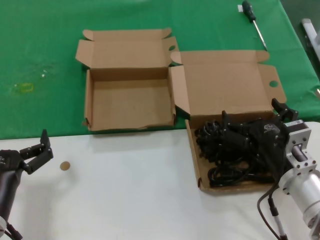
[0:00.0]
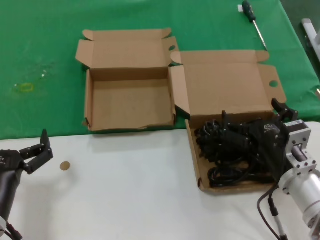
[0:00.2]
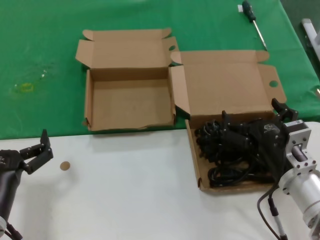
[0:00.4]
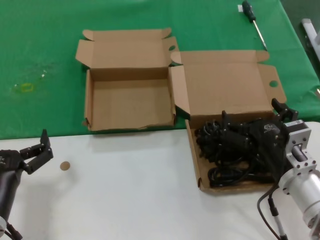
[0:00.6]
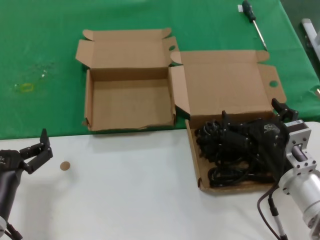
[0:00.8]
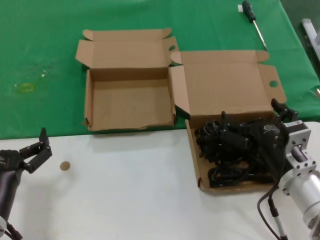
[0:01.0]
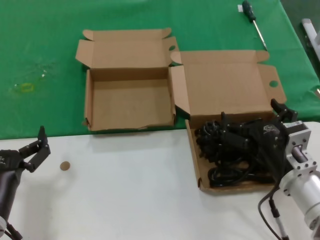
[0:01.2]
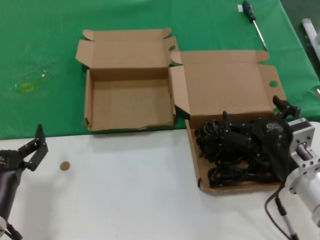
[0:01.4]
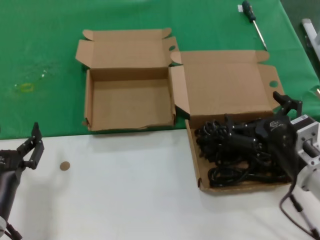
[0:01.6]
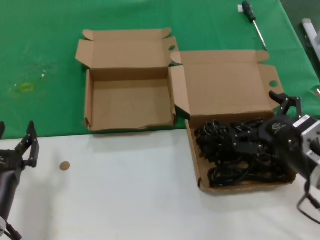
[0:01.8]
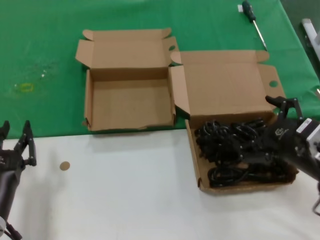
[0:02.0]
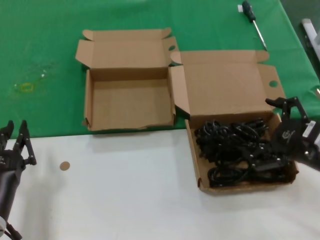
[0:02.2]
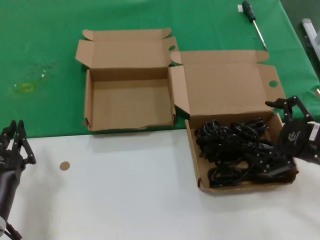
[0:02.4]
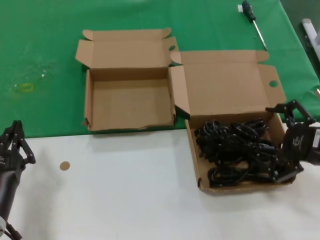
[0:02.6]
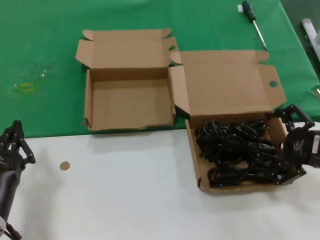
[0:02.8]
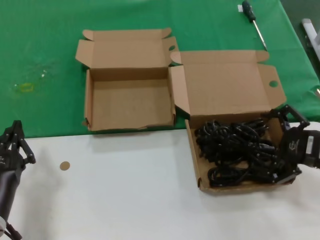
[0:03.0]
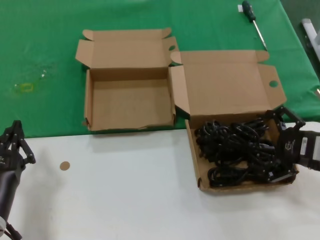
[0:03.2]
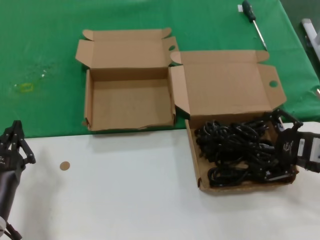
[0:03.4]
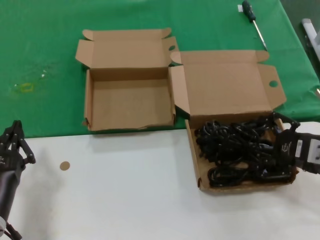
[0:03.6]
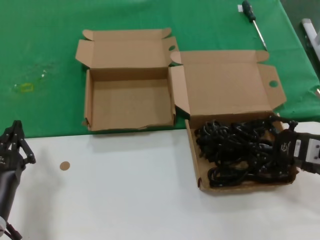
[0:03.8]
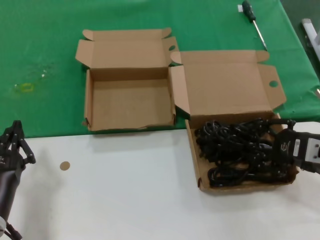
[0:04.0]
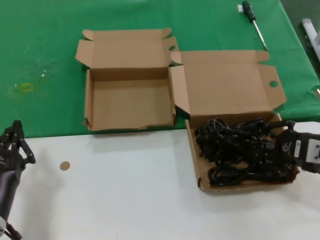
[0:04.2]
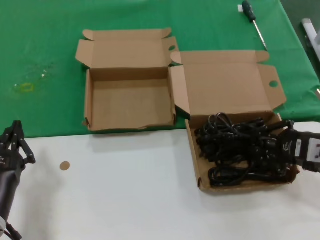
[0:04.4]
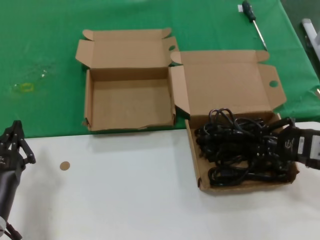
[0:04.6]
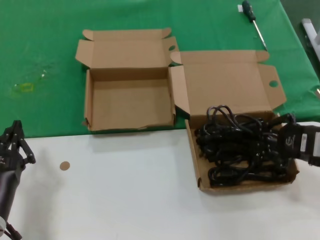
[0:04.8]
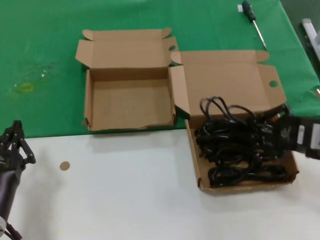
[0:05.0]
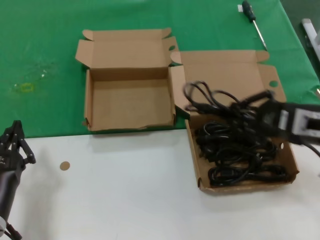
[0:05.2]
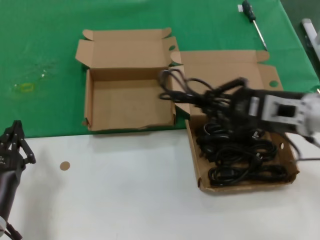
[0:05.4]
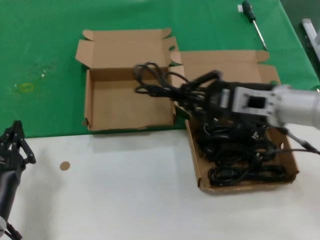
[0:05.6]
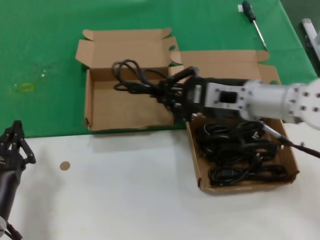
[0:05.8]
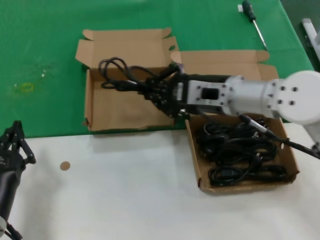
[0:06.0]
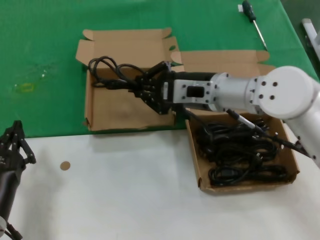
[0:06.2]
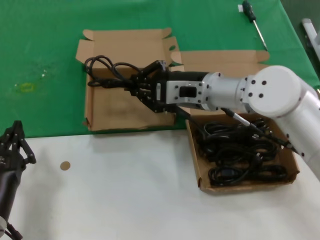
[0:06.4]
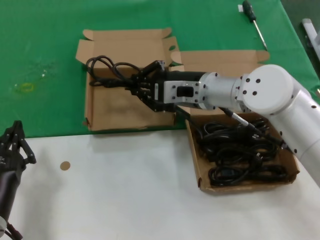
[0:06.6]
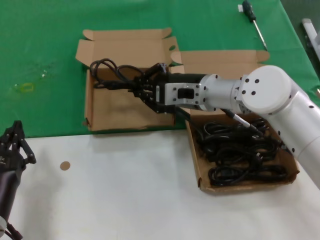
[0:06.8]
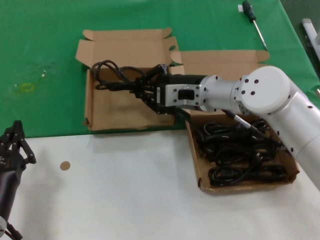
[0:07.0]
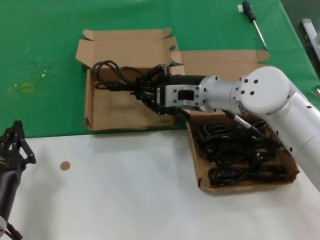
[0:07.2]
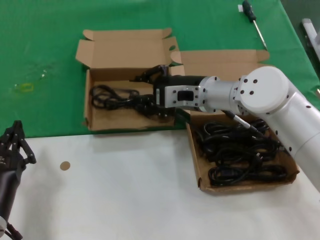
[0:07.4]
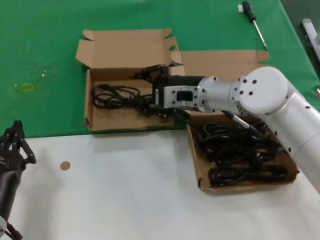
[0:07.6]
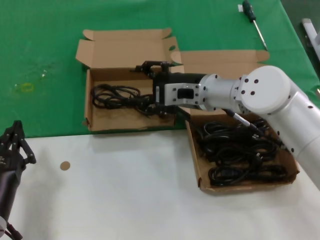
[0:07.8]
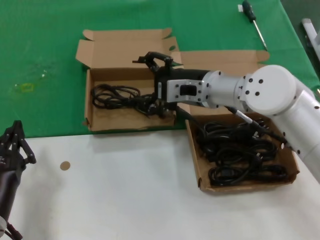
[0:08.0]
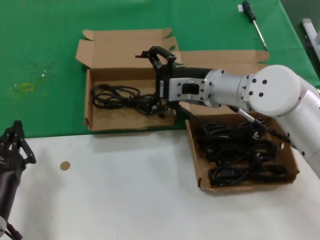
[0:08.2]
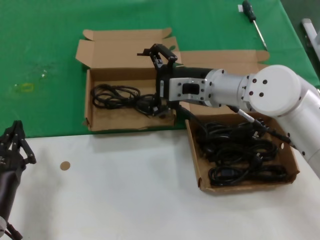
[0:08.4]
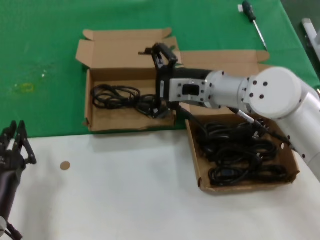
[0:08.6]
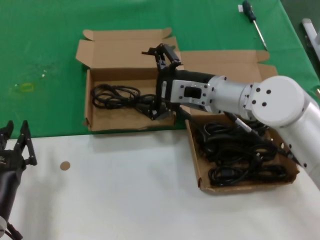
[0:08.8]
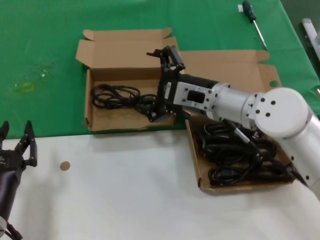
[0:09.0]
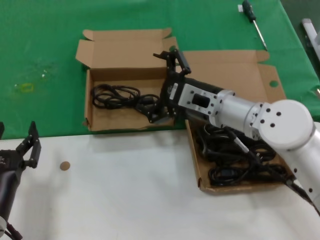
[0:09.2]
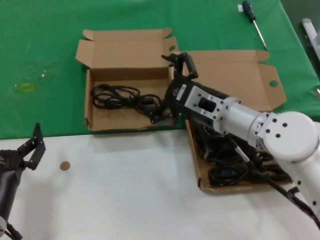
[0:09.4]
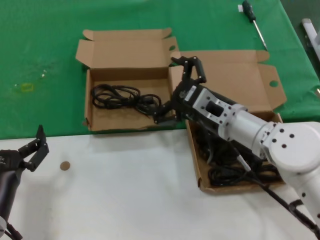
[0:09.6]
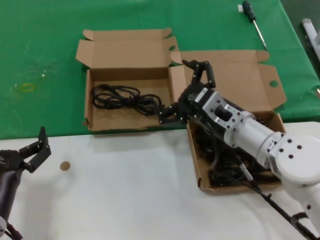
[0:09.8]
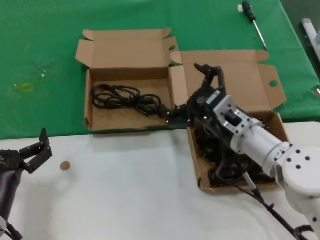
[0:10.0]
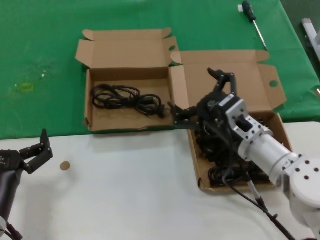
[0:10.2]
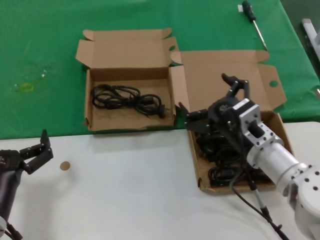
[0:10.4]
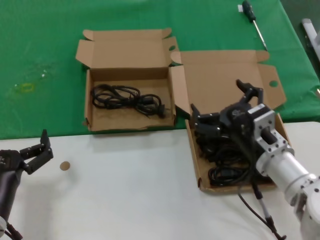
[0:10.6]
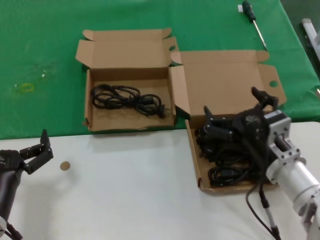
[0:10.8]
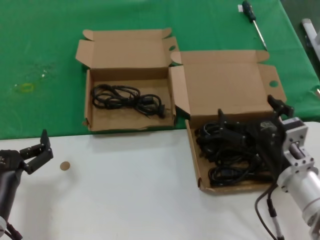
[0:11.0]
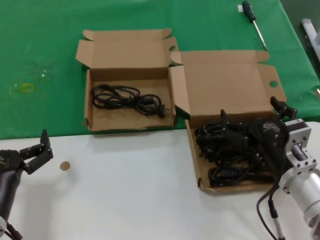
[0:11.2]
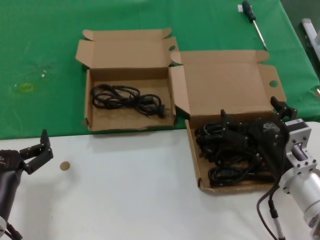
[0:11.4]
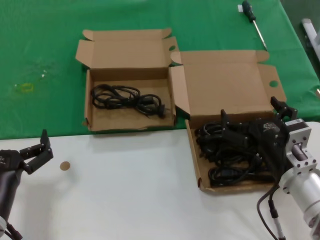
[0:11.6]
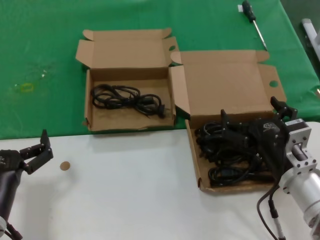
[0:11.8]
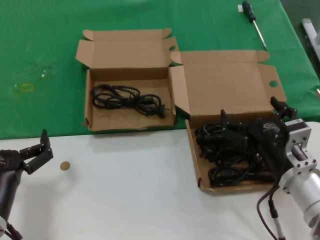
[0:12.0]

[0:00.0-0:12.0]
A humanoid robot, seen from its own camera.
Task of the whole recording: take the parts from the box containing them and put them into an empty box.
Step, 0.0 to 4.2 s: Grasp the data cable.
Step, 4.4 to 8.0 s: Place the data cable in the another box.
0.0 to 1.6 s: The hands make only small movements.
1.6 to 3.0 s: The right hand shifts roughly 15 cm to the right and upward.
3.0 to 4.4 s: The hands move only a little.
4.4 to 6.0 s: The right hand shifts roughly 25 cm to the left, forward and upward.
6.0 to 7.6 s: The right hand moves forward, about 5 cm.
7.6 to 9.0 s: The hands make only small movements.
9.0 to 10.4 s: The right hand travels backward, downward and to the right by about 15 cm.
10.4 to 12.0 s: The right hand goes roughly 5 cm backward.

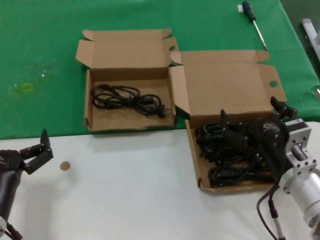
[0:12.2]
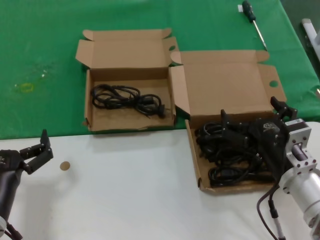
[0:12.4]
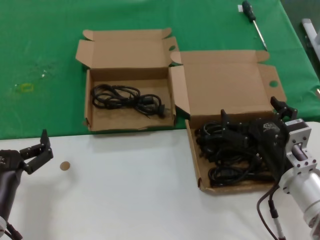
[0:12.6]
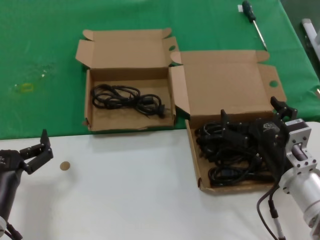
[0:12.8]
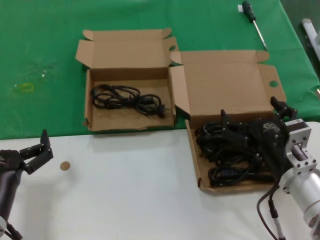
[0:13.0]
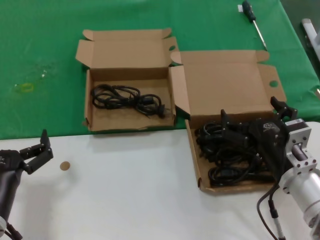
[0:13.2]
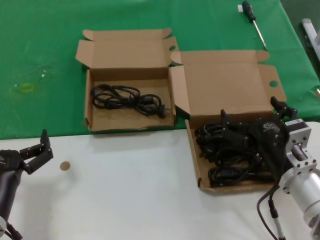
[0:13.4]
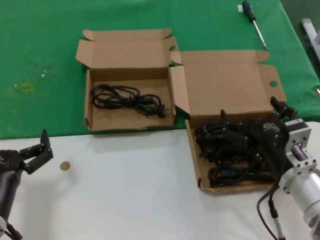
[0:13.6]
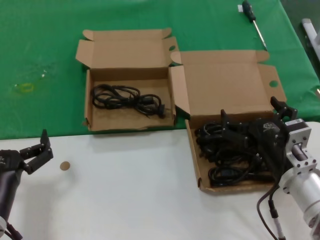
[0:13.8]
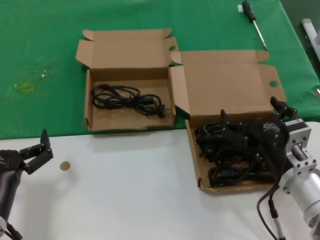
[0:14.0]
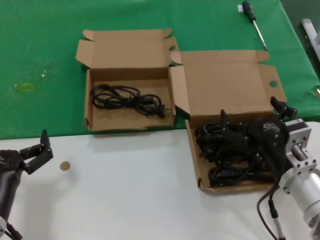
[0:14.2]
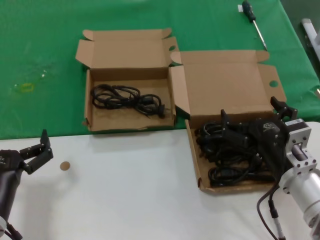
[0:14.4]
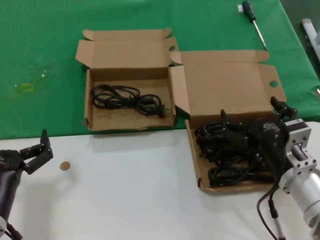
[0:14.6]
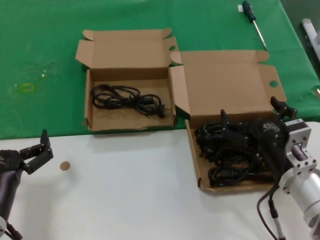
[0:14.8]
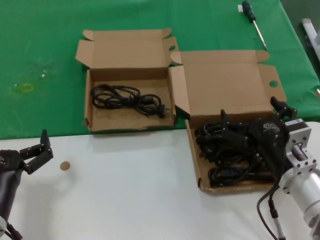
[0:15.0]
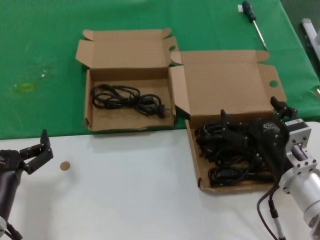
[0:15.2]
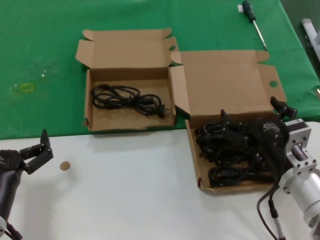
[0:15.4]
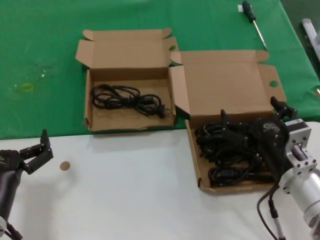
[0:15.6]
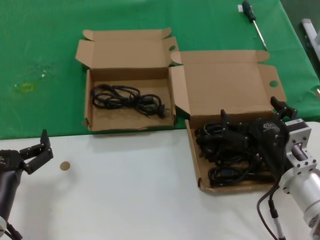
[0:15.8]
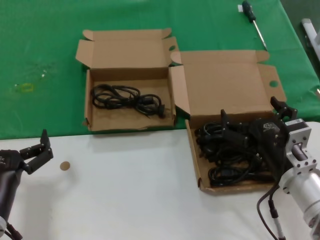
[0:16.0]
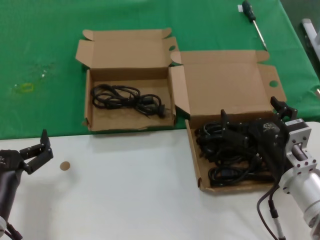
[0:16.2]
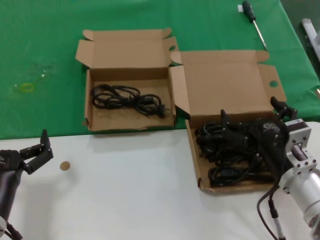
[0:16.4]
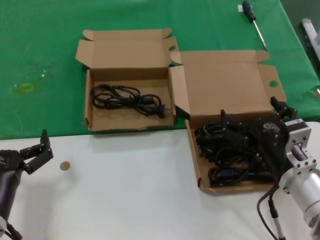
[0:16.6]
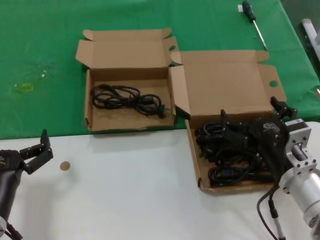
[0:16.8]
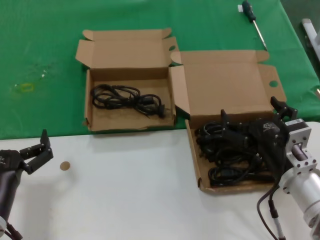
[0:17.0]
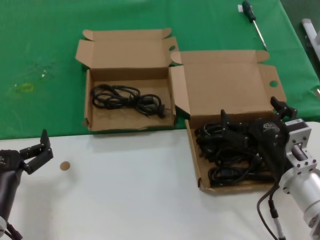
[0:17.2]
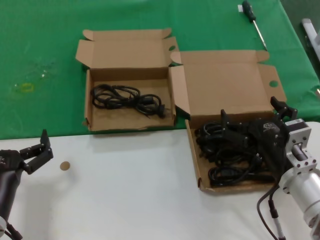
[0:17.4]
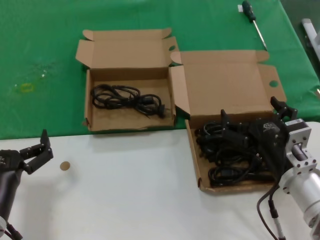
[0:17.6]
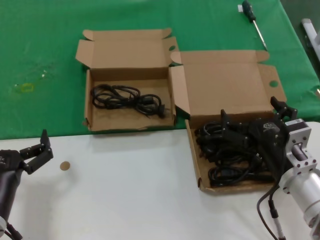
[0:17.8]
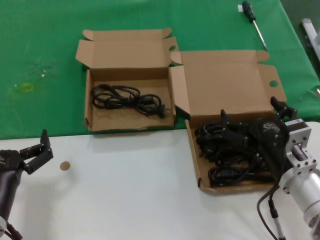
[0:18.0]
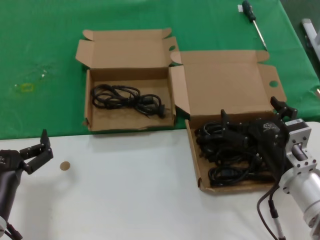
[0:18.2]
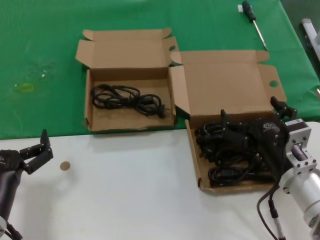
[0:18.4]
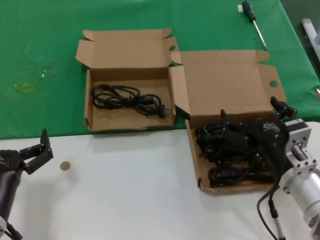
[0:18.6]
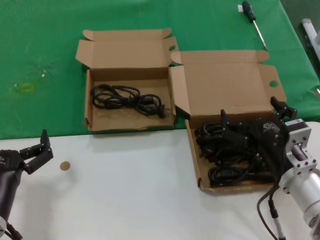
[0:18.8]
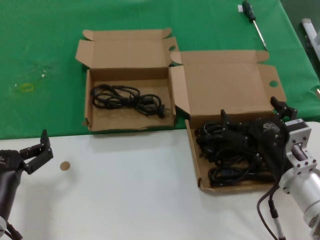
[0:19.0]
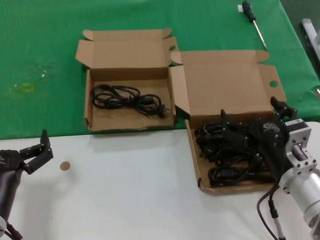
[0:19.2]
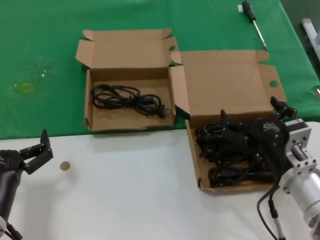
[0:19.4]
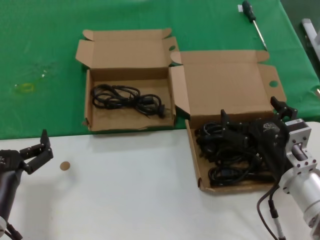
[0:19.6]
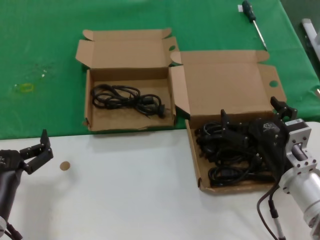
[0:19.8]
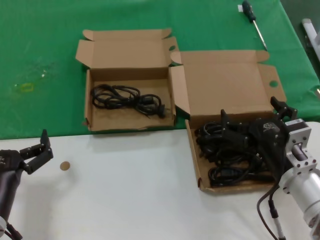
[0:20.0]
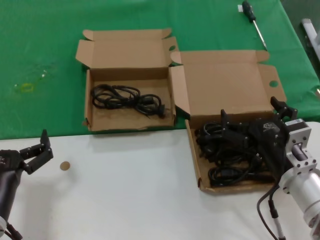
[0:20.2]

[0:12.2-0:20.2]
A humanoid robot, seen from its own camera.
Task of the whole recording: take the parts from the box containing them and put them into an empty box.
12.2 to 20.2 s: The two hands keep their place.

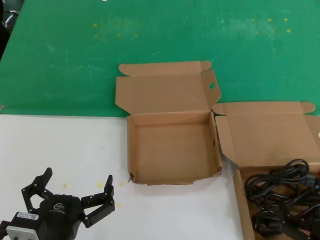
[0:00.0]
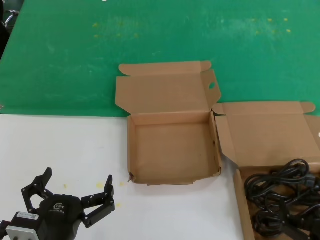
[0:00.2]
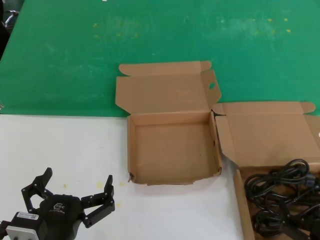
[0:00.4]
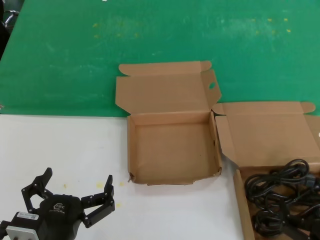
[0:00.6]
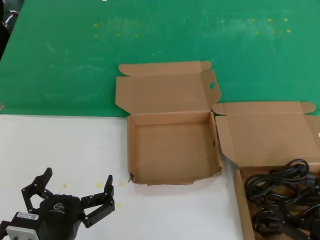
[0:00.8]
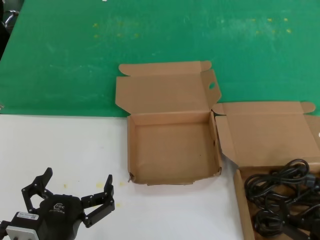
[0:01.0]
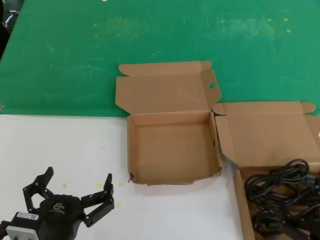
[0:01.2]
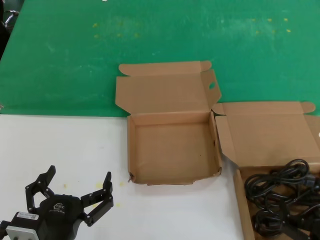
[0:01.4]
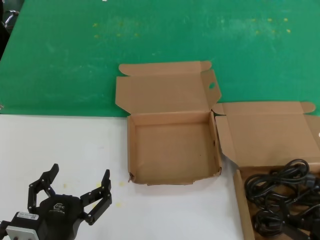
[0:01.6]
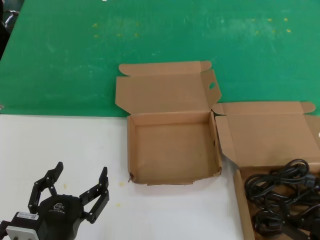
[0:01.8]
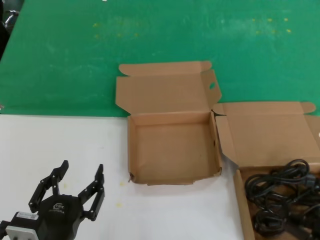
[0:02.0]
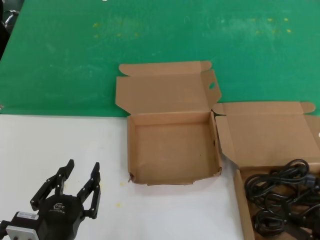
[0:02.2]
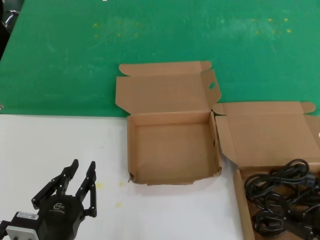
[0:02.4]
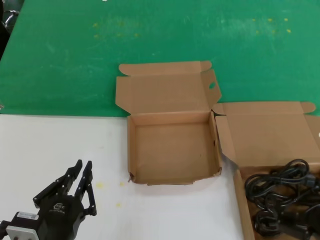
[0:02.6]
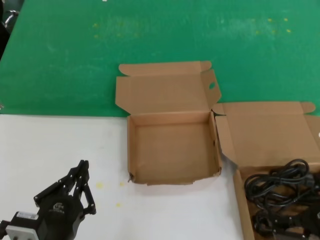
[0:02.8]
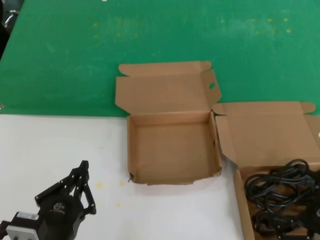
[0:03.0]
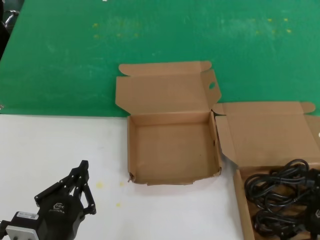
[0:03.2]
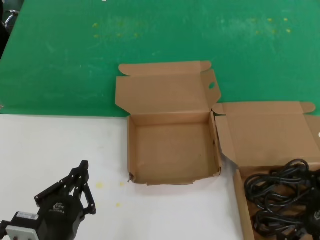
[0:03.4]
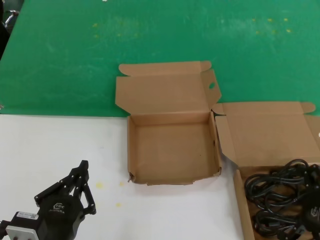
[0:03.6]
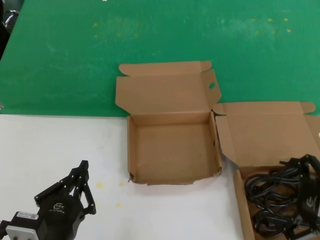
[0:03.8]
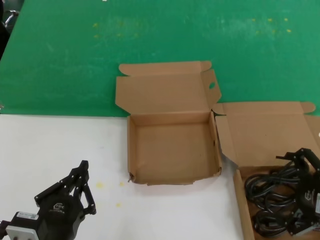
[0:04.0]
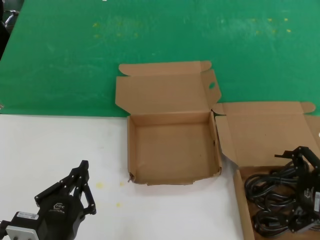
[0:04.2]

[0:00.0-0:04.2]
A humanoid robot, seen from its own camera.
Task of the whole recording: take the parts from the box containing them and put them into an empty box.
0.0 to 1.4 s: Both hands stay about where they are.
1.4 to 2.8 s: The right hand is displaced upward by roughly 5 cm.
2.8 to 4.2 s: The right hand is displaced upward and forward by roughly 15 cm.
